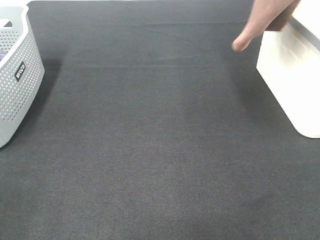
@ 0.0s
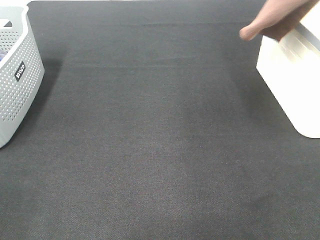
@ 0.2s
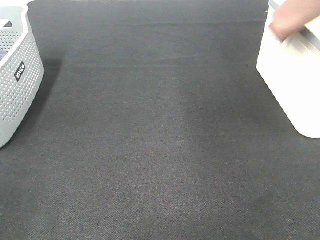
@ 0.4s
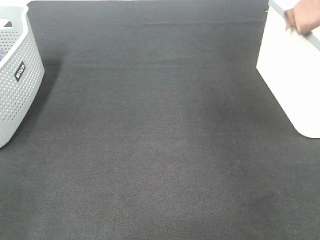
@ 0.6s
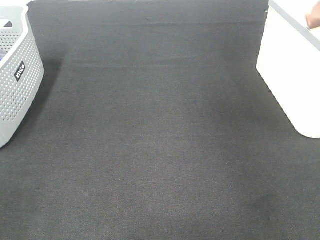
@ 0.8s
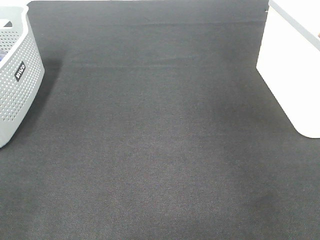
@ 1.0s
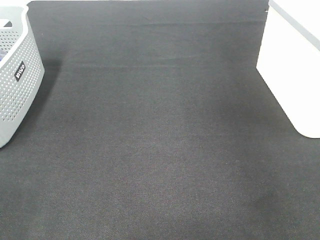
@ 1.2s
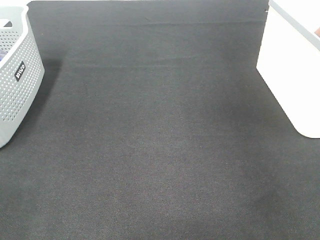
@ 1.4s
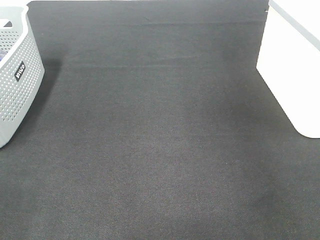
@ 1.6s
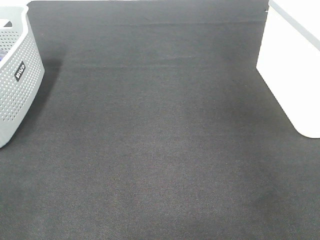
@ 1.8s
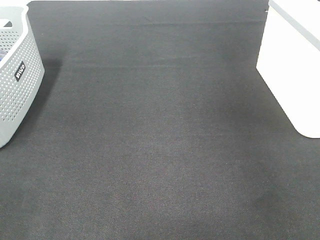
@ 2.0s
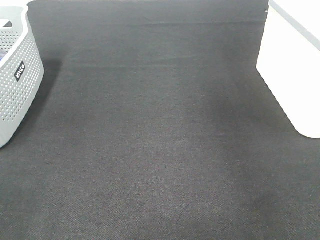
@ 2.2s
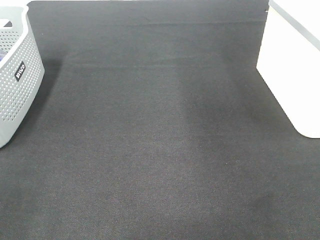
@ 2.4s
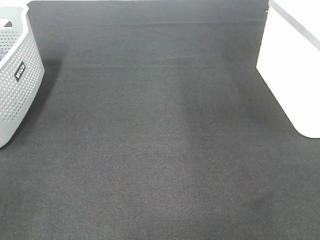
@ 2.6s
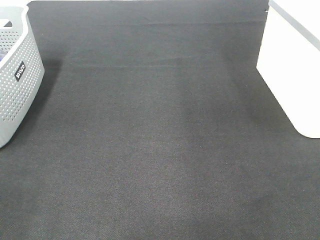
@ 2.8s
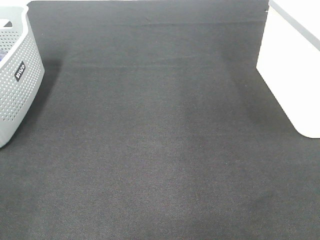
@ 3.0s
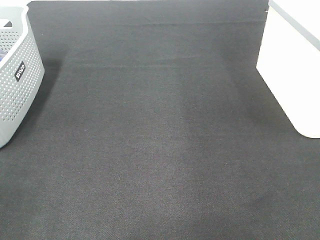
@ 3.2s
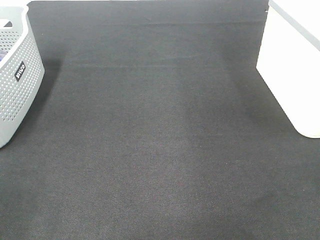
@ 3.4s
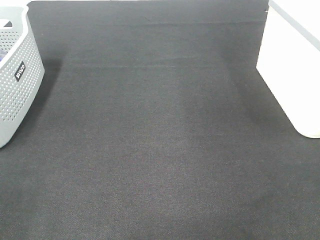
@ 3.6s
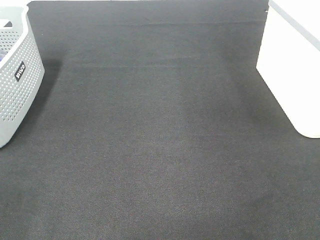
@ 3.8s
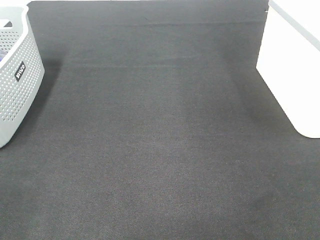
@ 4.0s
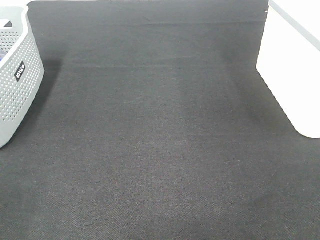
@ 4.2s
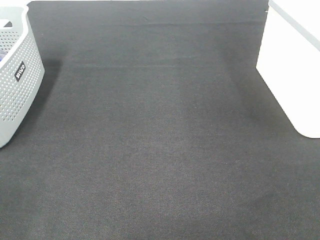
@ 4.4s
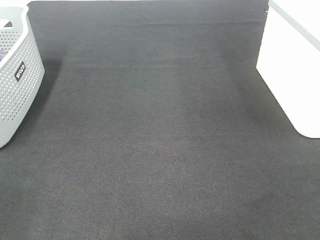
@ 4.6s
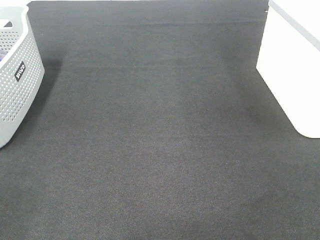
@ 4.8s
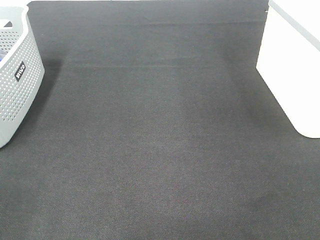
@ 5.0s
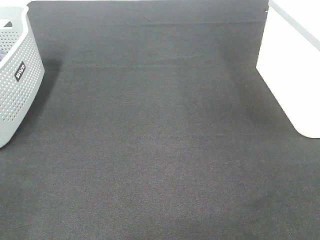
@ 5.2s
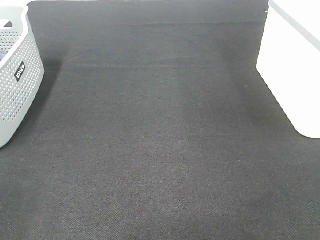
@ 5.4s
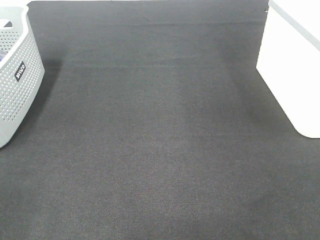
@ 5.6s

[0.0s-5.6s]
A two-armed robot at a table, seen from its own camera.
Step, 0.0s to 1.8s: Right hand: place the brown towel in right basket.
0.0s to 1.4s: The right gripper goes about 20 cm to the right and downward, and opens up.

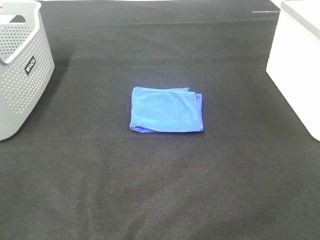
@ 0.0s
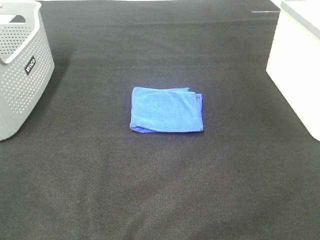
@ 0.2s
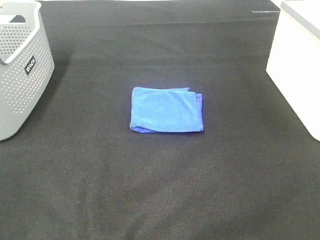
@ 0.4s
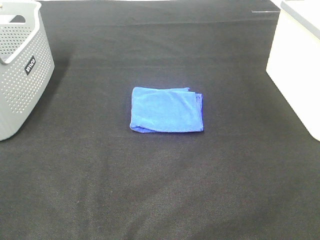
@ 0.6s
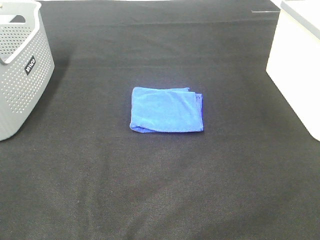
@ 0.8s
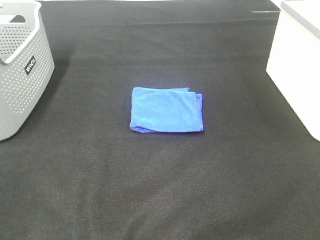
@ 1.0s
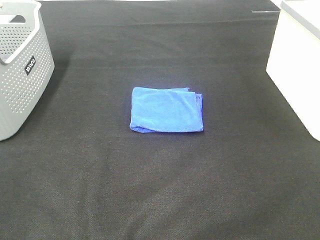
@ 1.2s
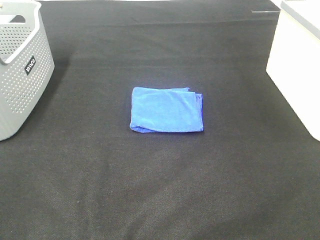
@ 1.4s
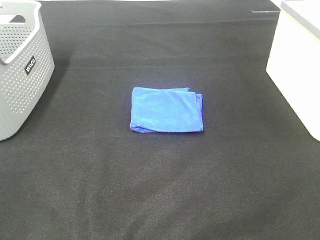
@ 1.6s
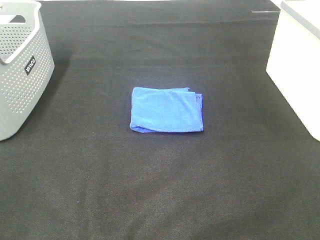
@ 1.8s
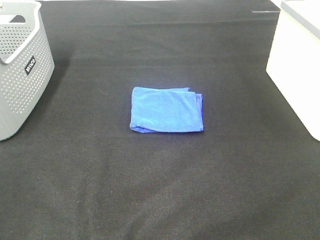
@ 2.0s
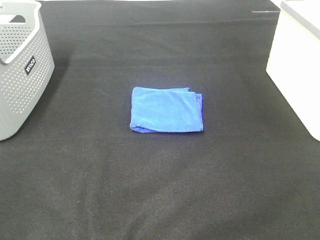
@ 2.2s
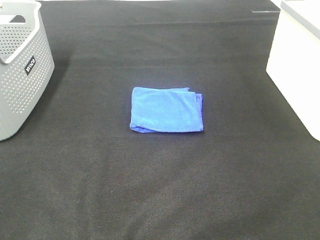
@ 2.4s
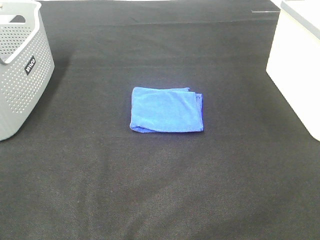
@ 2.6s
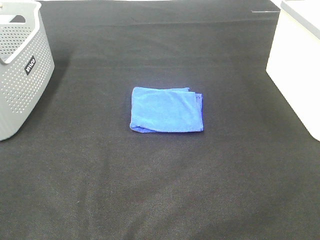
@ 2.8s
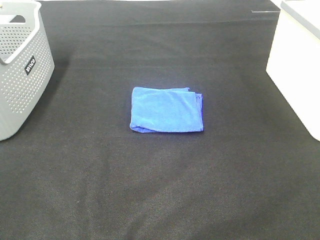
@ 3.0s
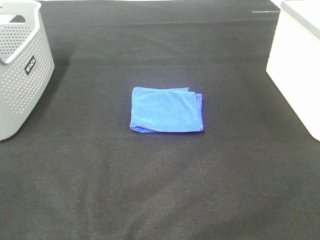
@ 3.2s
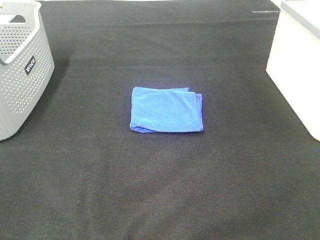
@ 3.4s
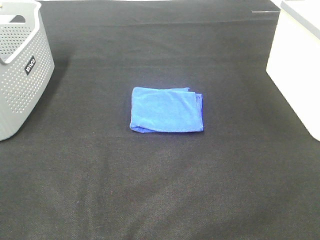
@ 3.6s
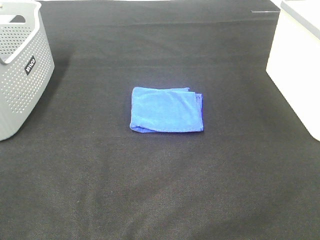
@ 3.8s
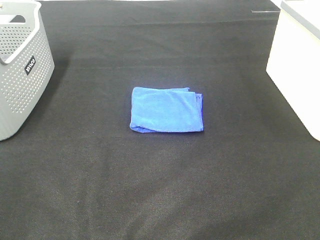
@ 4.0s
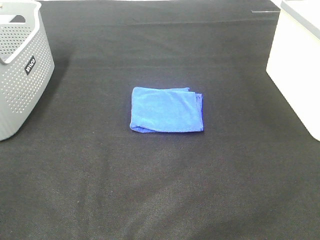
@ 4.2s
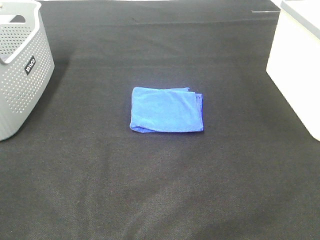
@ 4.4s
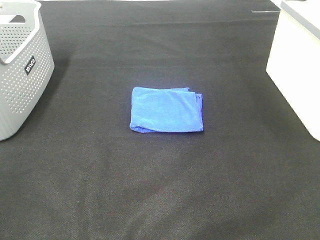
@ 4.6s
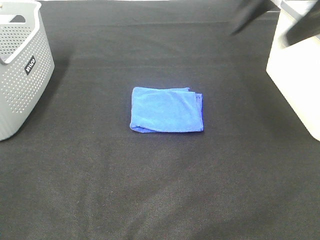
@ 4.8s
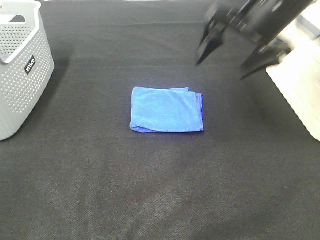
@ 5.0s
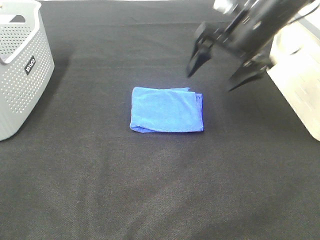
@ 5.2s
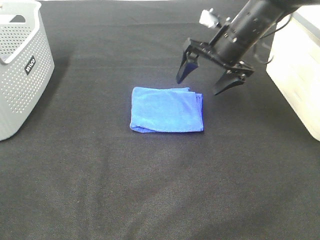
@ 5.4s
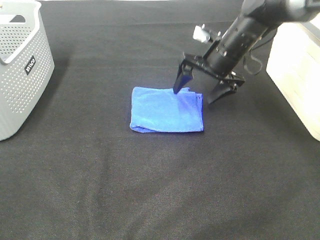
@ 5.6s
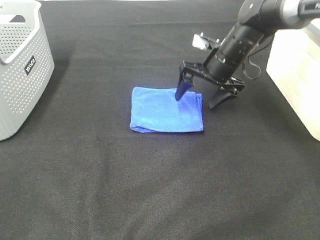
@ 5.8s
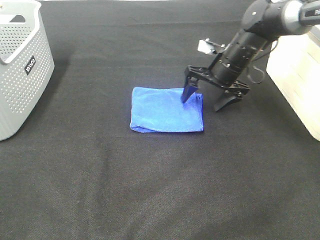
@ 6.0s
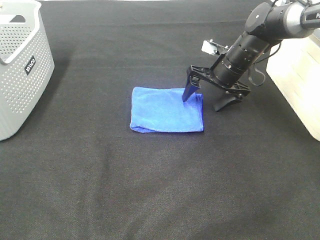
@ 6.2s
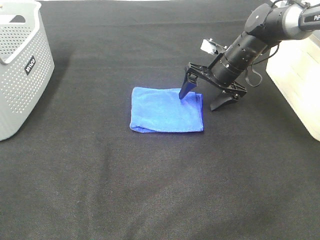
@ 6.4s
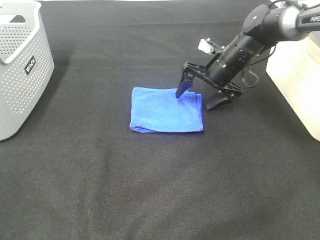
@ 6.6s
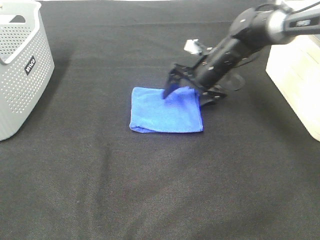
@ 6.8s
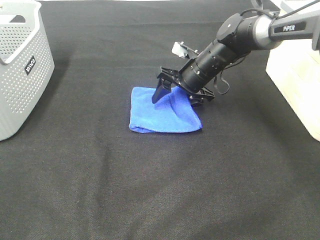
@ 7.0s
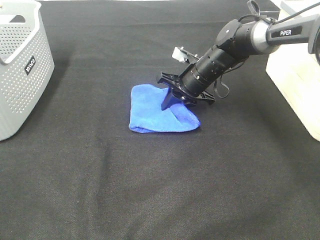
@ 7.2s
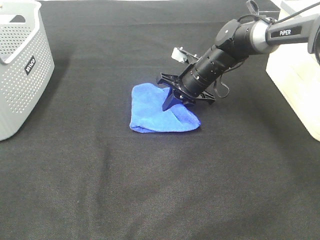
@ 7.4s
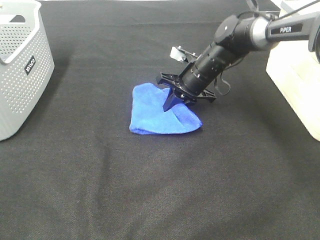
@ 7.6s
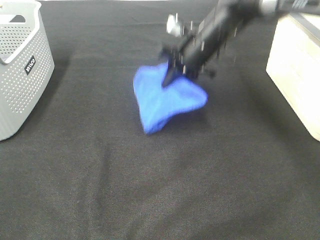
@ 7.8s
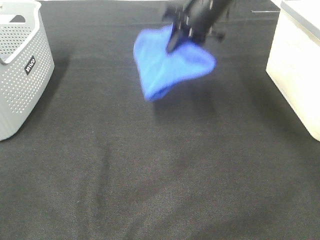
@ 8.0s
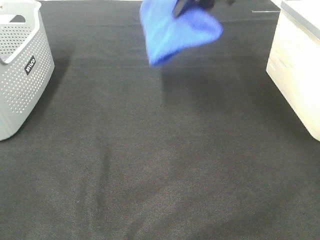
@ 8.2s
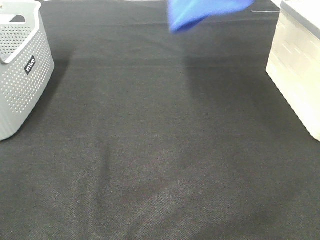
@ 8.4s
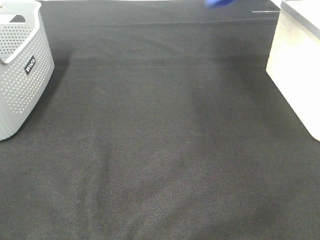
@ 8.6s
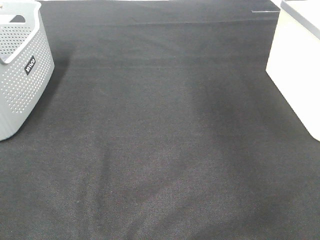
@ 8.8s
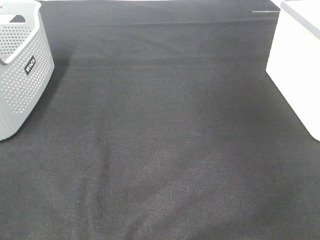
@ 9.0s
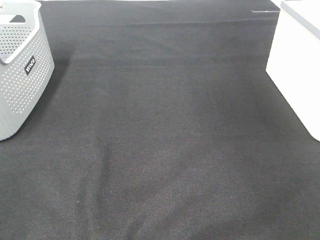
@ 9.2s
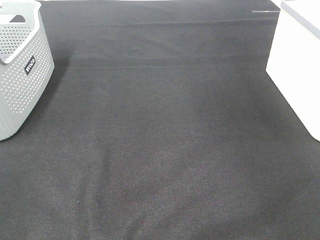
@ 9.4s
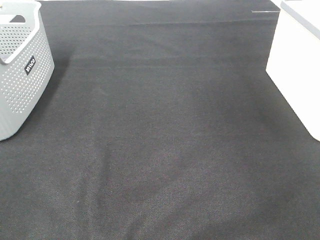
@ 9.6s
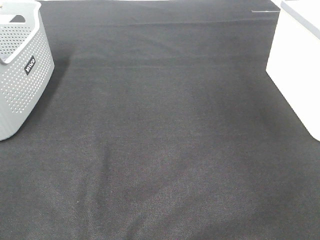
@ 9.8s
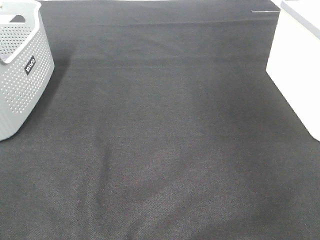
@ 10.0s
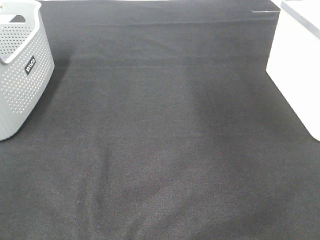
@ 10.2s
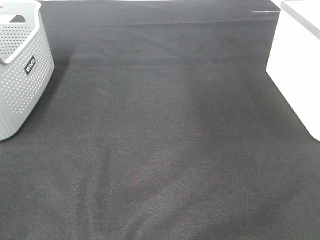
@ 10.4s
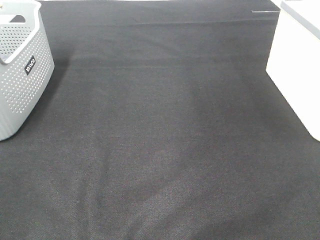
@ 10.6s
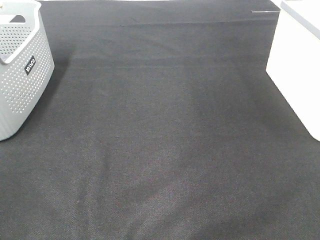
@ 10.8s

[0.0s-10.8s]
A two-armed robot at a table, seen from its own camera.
Step, 0.0s to 7.4s: Right hand: grab the folded blue towel.
Step, 7.6s to 9.6s: Right hand: place the blue towel in right basket.
0.0s to 3.0s: The two grippers keep their place.
4.6s to 6.2s: The right gripper is displaced downward and forward by approximately 35 cm.
6.2s to 7.8s: The right gripper travels to the left and upward by approximately 10 cm, and closes its fingers.
7.8s to 9.2s: The right gripper is displaced to the right and upward by about 40 cm.

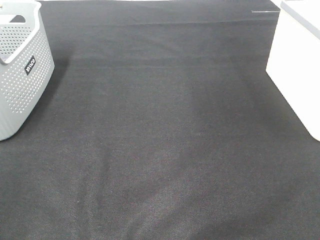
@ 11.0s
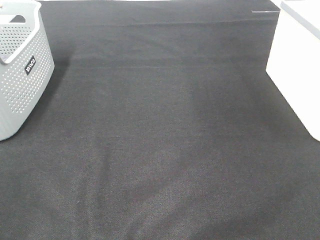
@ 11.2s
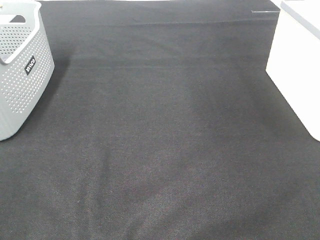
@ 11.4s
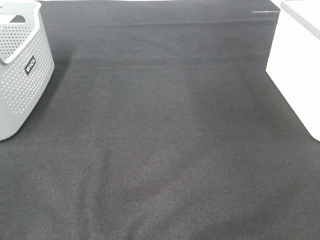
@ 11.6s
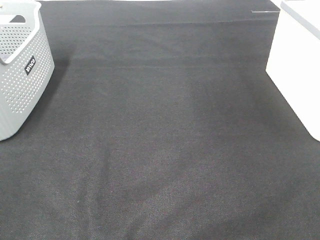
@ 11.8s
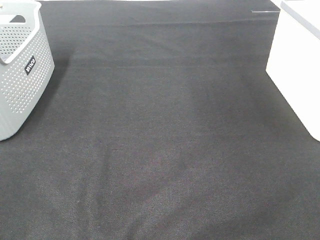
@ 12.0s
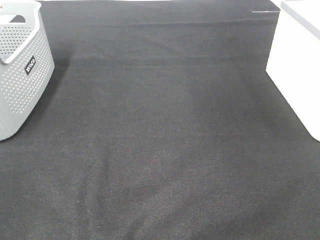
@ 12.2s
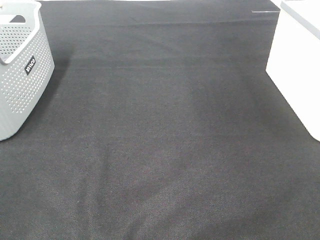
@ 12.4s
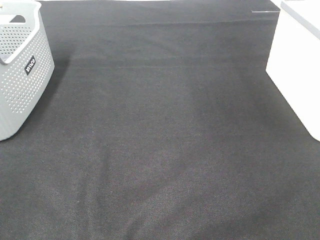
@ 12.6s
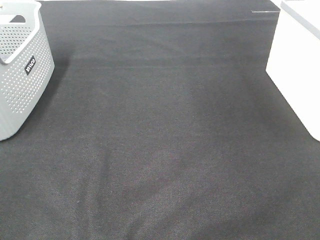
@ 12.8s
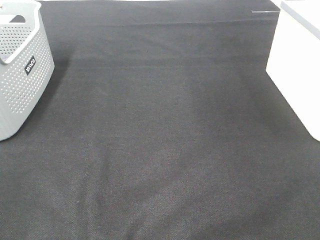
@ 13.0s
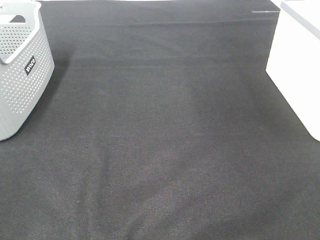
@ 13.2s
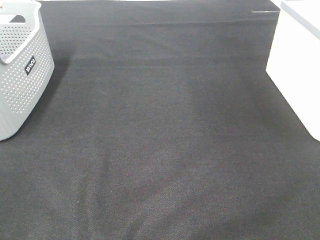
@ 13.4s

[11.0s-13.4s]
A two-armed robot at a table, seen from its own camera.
12.2s to 13.4s: The two grippers keep their place.

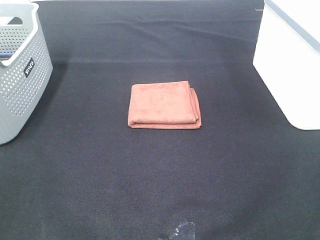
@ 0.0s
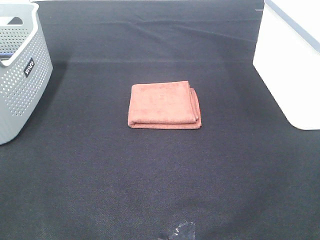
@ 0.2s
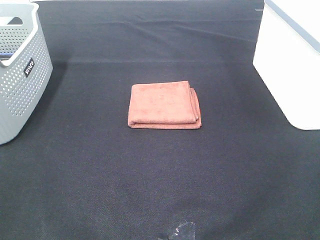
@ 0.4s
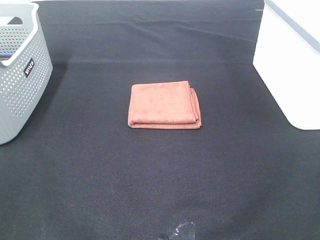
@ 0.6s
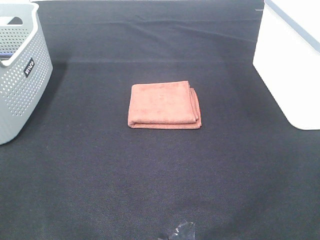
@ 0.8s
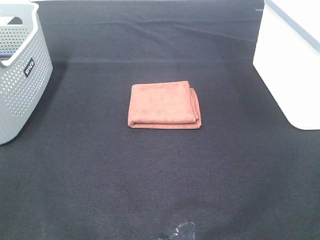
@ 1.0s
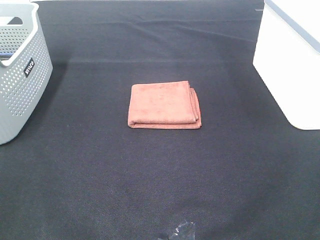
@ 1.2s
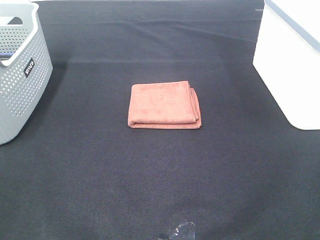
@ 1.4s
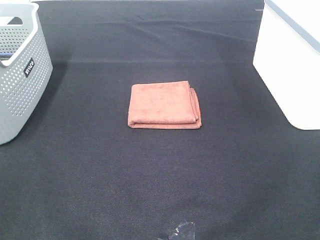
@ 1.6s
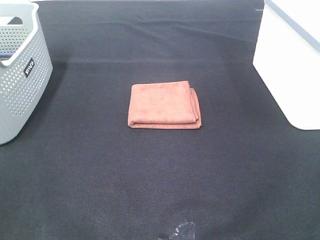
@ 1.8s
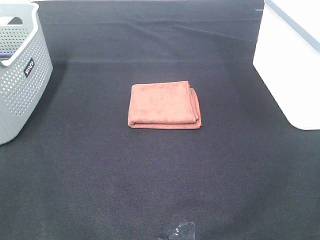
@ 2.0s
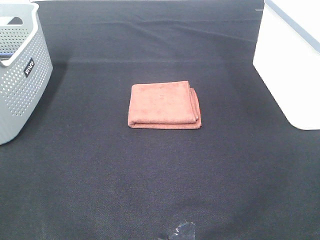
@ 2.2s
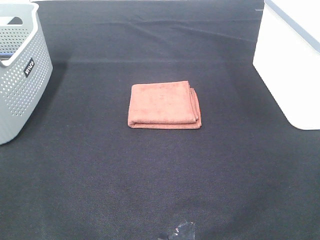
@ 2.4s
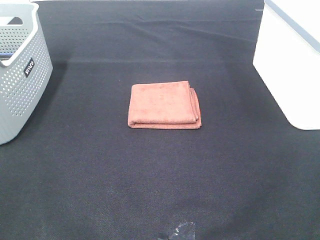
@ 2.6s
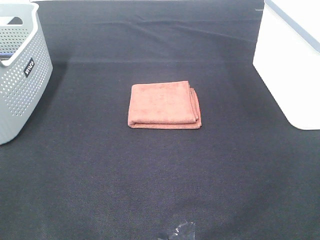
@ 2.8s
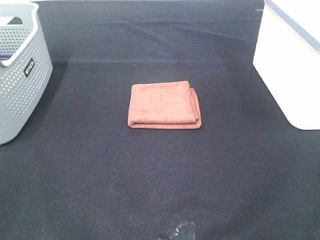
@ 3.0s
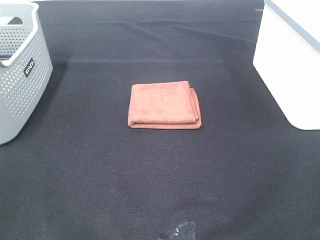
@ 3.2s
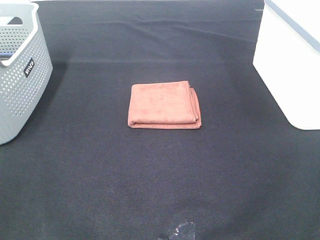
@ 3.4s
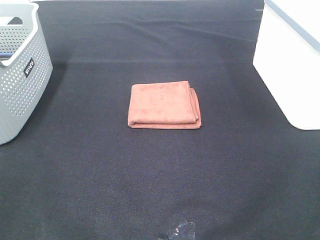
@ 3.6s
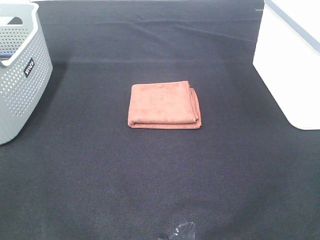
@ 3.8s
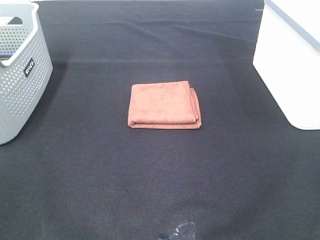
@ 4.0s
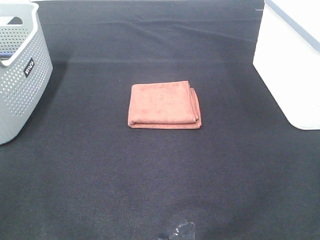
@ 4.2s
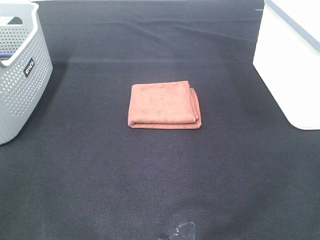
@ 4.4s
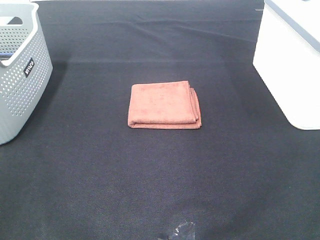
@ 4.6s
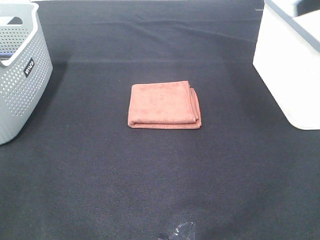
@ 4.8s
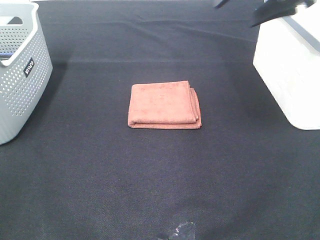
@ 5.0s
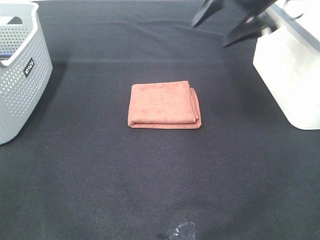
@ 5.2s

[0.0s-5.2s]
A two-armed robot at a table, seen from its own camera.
0.0s to 3.4s: The two grippers keep their place.
3.4s to 5.2s: The right gripper heads forward, covering roughly 40 cm.
